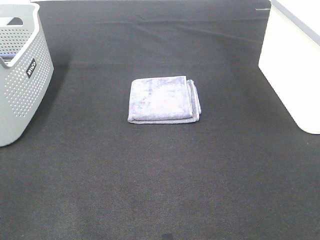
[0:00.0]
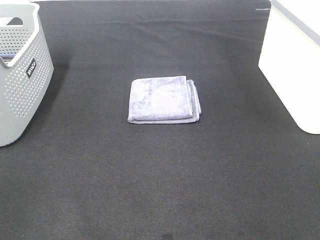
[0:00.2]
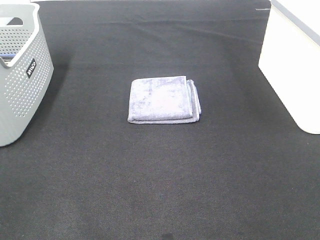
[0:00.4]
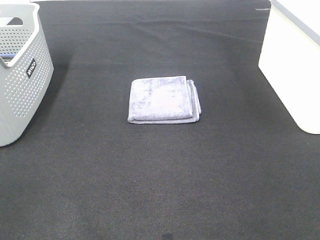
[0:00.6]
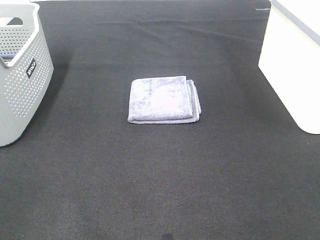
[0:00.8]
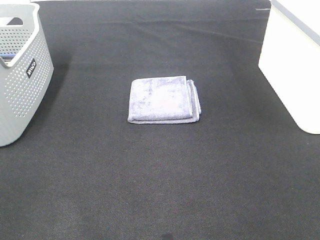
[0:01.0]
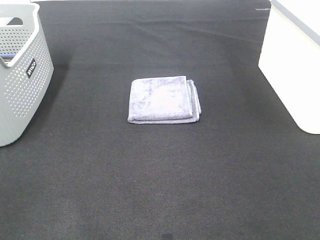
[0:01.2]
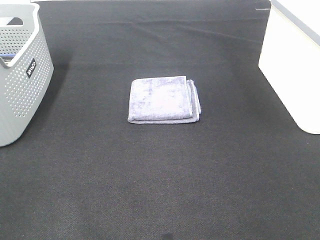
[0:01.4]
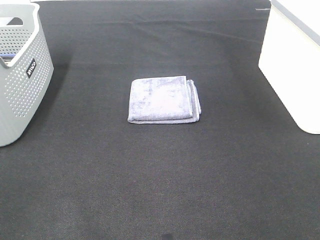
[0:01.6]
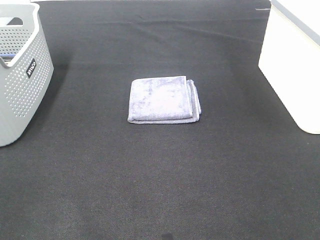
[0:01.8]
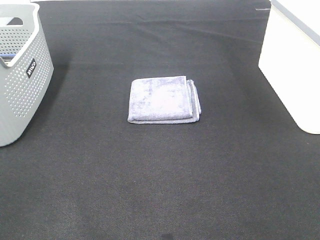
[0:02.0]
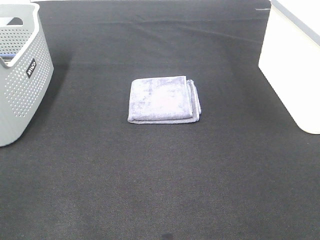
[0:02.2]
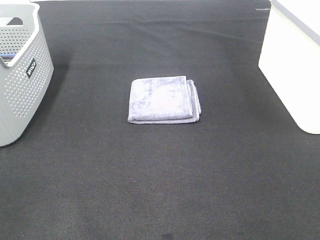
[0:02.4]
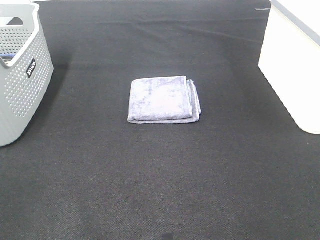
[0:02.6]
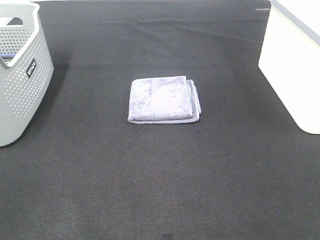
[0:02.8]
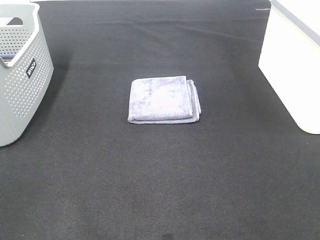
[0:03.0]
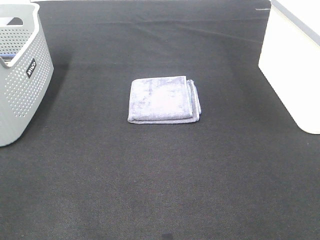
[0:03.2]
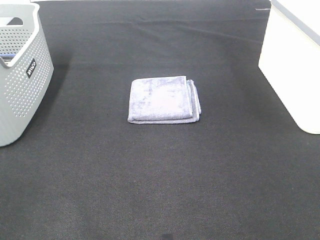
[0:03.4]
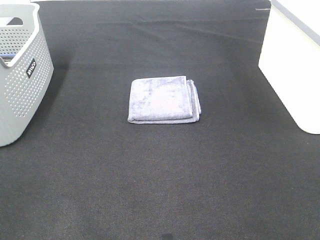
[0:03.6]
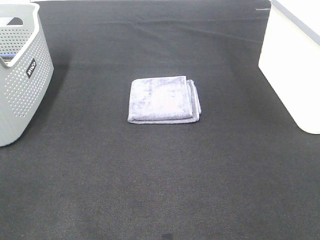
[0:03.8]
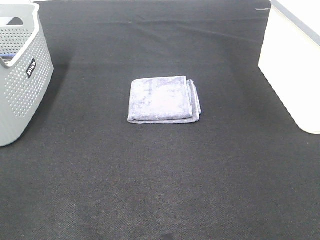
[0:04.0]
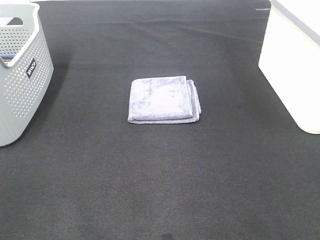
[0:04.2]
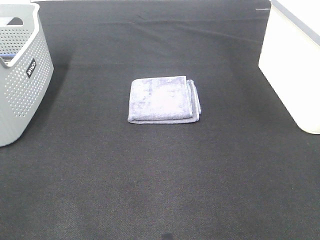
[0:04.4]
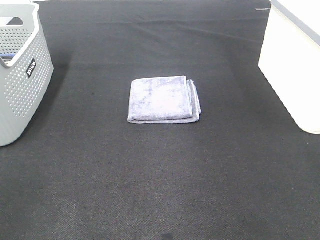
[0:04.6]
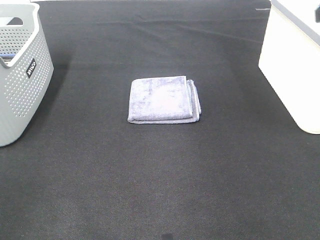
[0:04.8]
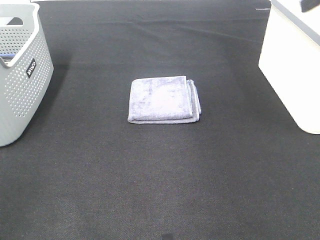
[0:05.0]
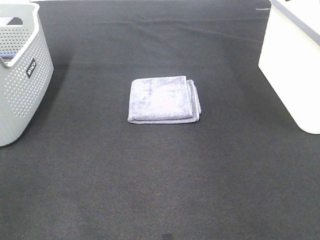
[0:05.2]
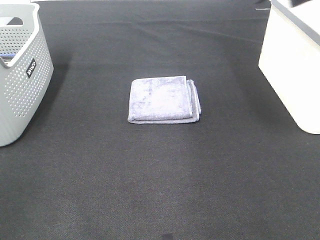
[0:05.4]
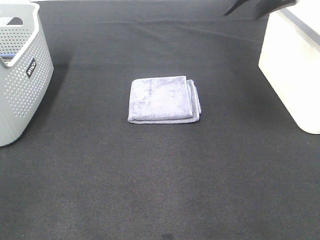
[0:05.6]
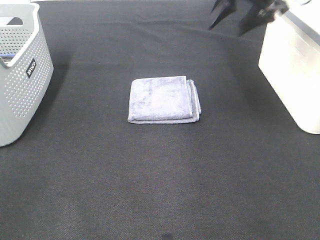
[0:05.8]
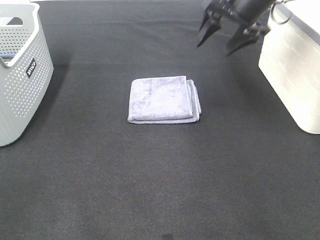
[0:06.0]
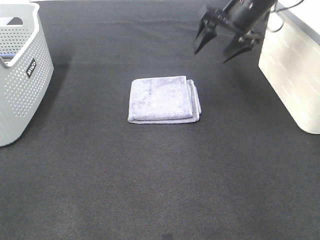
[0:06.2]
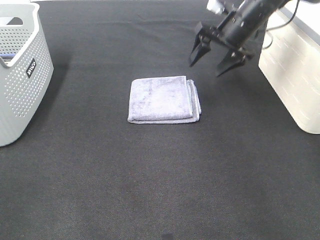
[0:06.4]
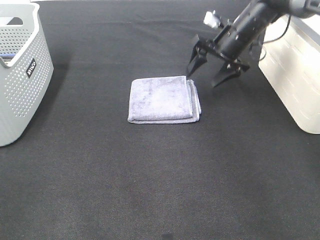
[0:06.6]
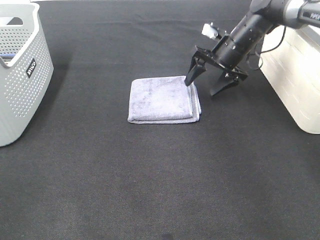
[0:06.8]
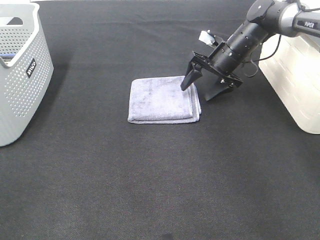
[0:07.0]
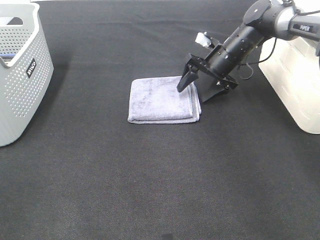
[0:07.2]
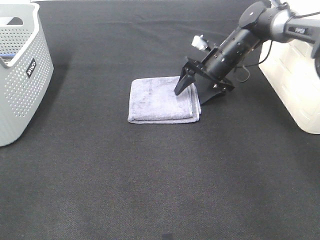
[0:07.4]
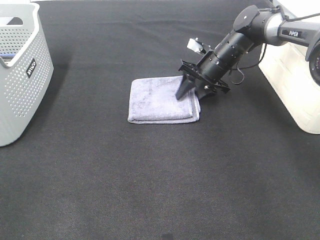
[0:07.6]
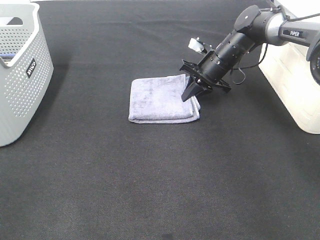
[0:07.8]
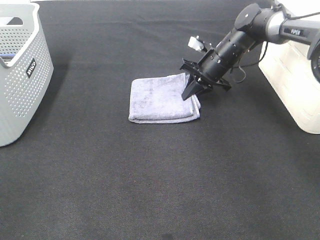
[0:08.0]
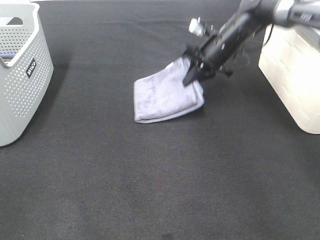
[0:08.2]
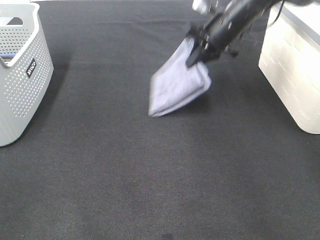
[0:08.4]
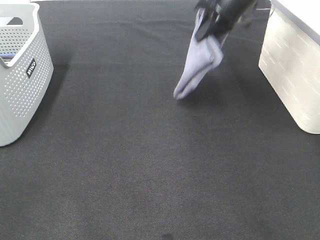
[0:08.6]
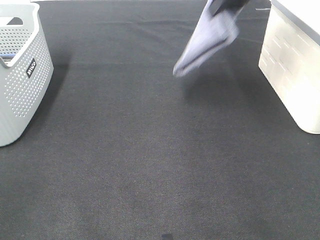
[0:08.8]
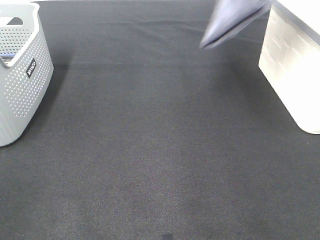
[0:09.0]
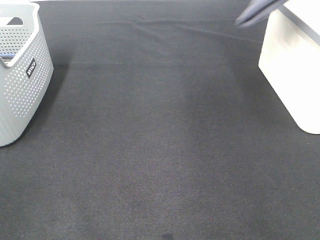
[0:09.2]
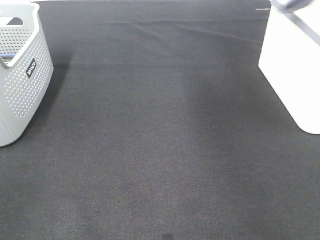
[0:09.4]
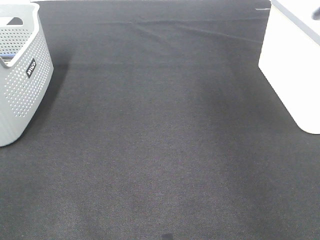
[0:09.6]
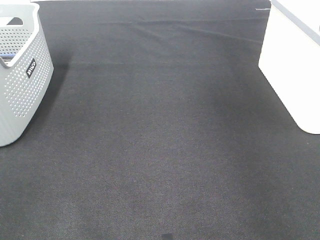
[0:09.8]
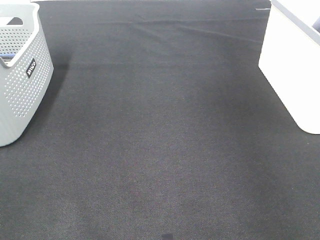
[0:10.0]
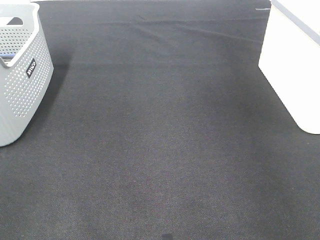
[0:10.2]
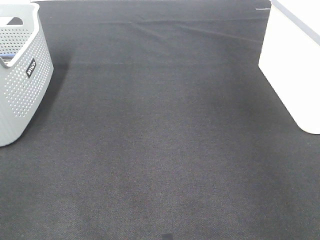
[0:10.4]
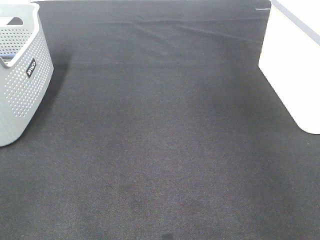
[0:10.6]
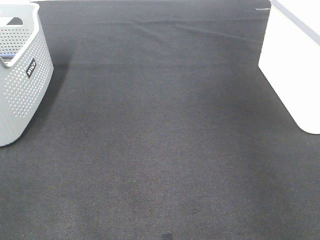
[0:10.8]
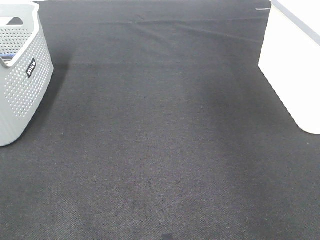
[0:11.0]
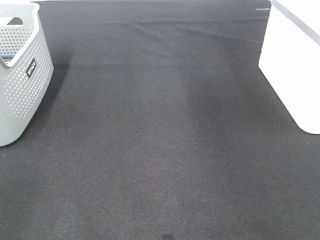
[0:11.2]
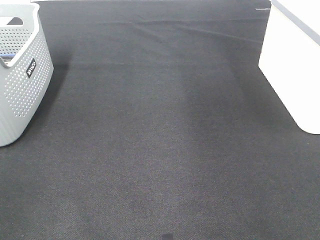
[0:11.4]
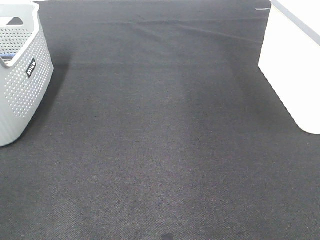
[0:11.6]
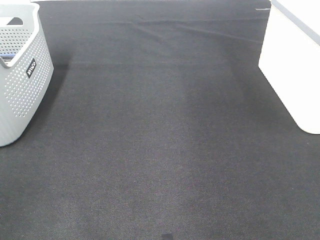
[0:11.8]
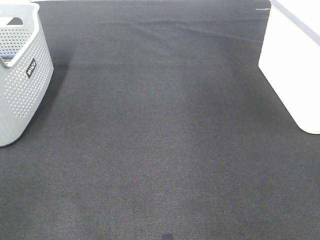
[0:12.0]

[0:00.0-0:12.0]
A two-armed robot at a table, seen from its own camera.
Step, 0:00.0 to 0:07.6: Right hand: grab the folded grey towel.
Step, 0:07.8 to 0:10.4: Right hand: place the grey towel in right basket.
0:00.0 to 0:03.0: The two grippers keep their place.
0:04.4 to 0:06.0: The right gripper travels forward by about 30 cm.
0:06.0 to 0:07.6: The right gripper heads downward, covering roughly 15 cm, and closes.
0:07.6 to 0:09.0: The right gripper shifts some 30 cm upward, and closes up.
0:09.0 to 0:10.4: The right gripper shifts approximately 20 cm to the right and downward, and opens up.

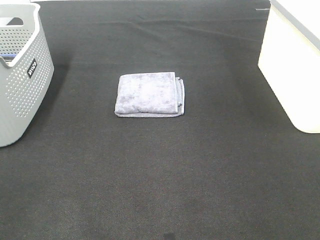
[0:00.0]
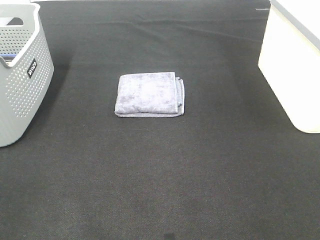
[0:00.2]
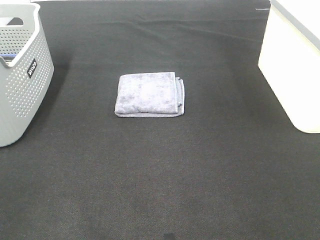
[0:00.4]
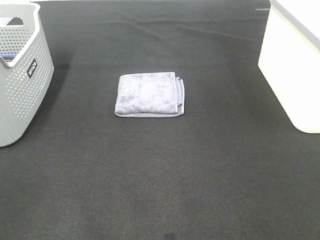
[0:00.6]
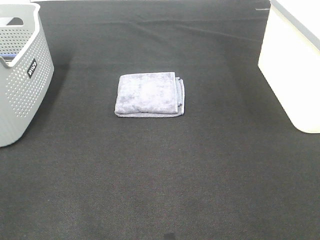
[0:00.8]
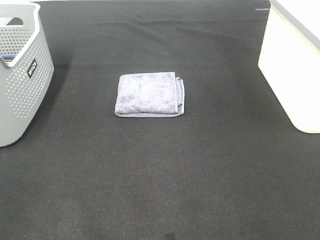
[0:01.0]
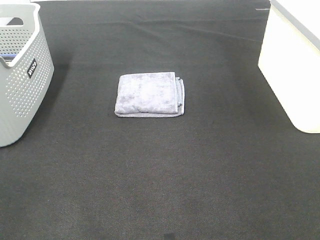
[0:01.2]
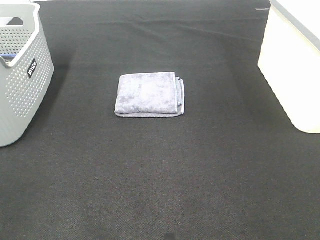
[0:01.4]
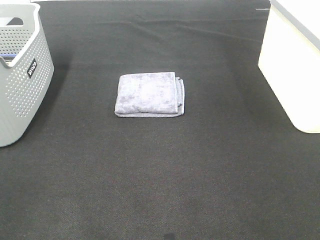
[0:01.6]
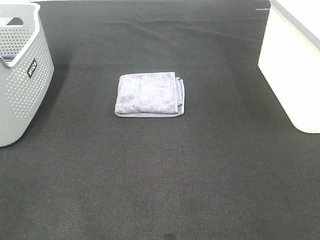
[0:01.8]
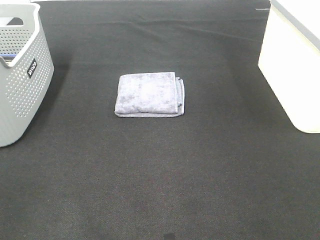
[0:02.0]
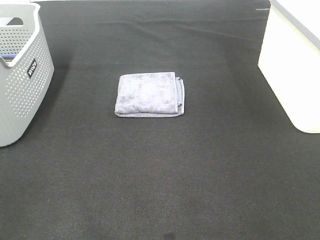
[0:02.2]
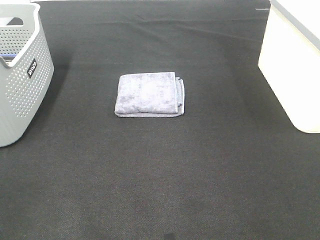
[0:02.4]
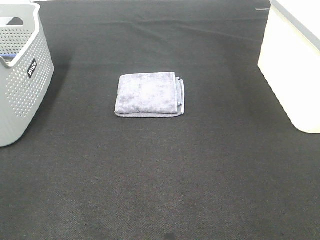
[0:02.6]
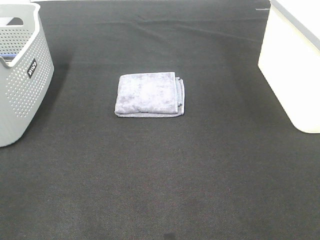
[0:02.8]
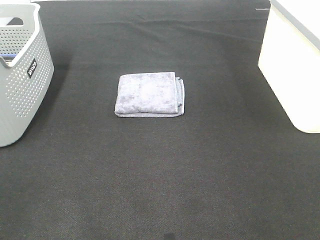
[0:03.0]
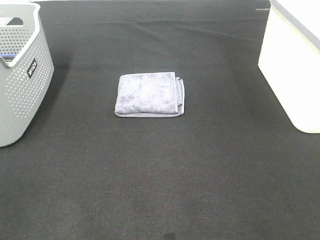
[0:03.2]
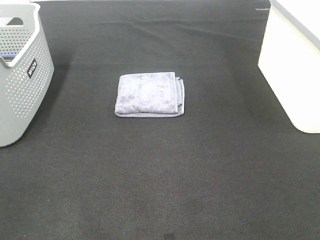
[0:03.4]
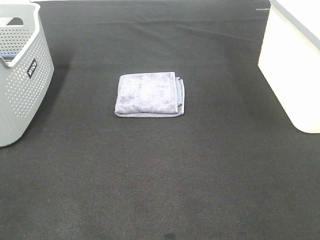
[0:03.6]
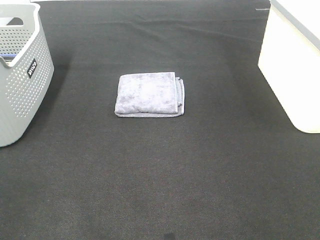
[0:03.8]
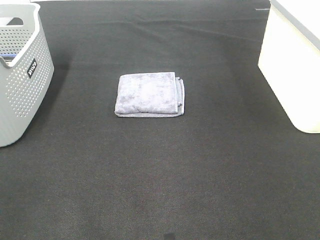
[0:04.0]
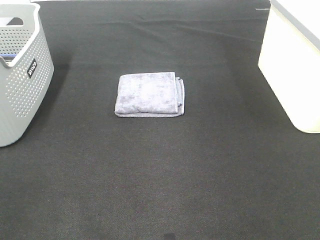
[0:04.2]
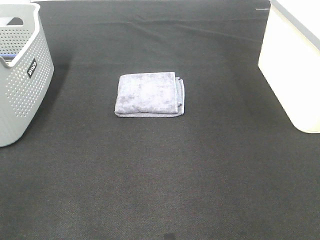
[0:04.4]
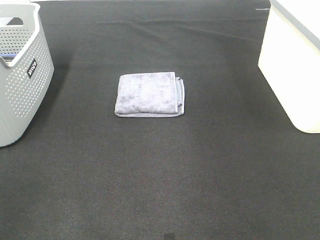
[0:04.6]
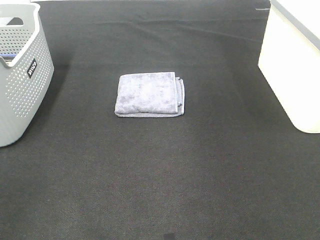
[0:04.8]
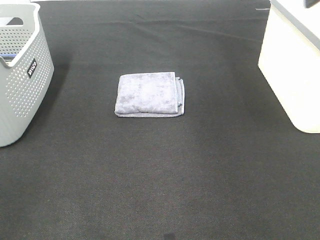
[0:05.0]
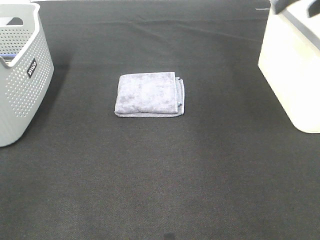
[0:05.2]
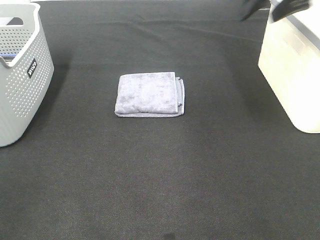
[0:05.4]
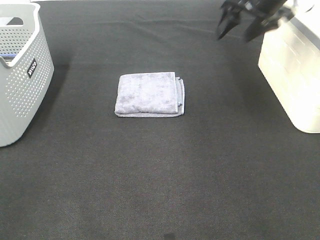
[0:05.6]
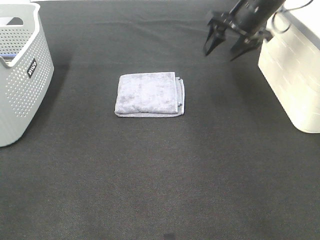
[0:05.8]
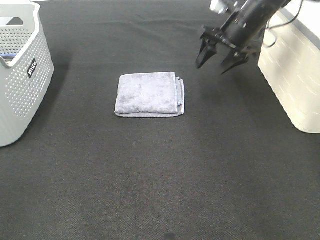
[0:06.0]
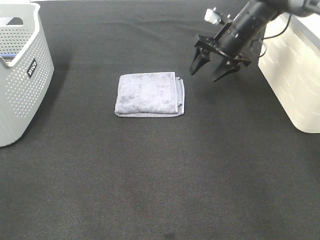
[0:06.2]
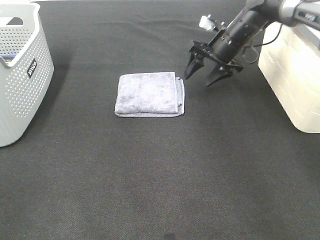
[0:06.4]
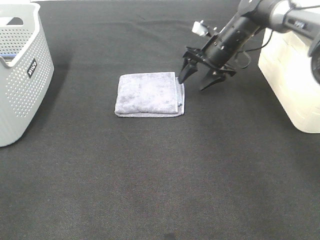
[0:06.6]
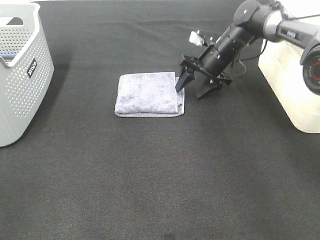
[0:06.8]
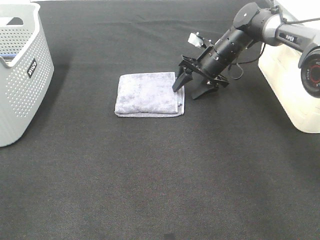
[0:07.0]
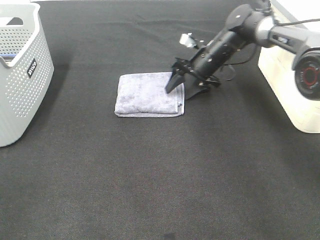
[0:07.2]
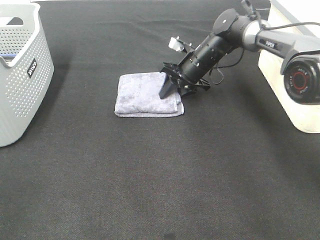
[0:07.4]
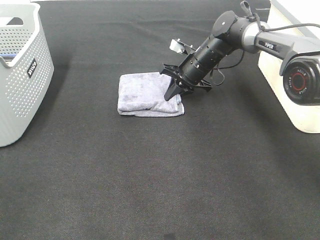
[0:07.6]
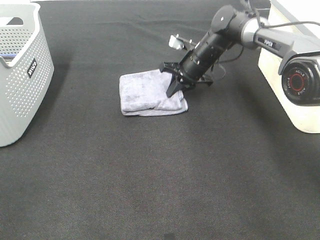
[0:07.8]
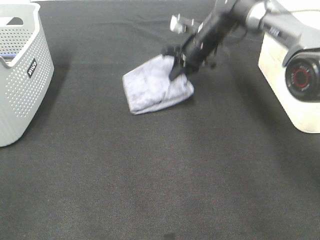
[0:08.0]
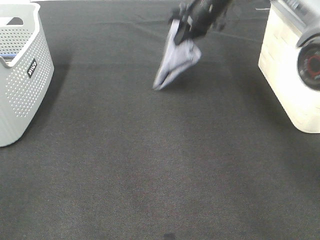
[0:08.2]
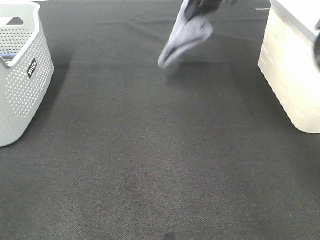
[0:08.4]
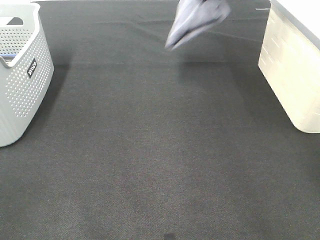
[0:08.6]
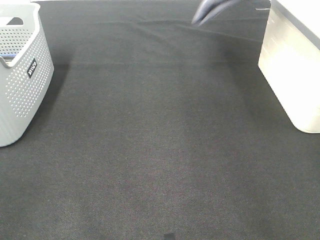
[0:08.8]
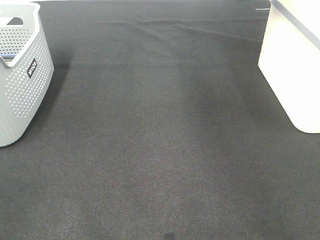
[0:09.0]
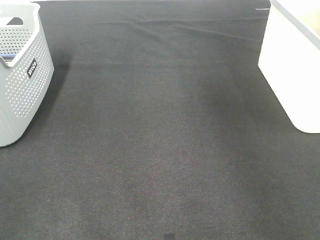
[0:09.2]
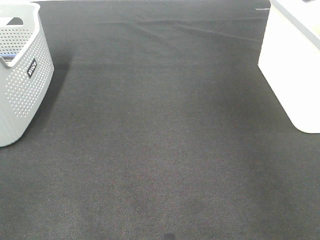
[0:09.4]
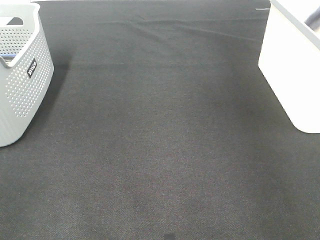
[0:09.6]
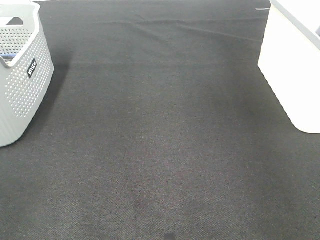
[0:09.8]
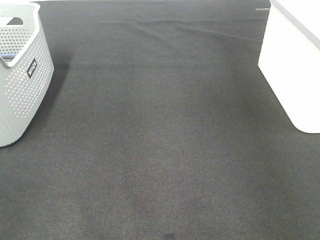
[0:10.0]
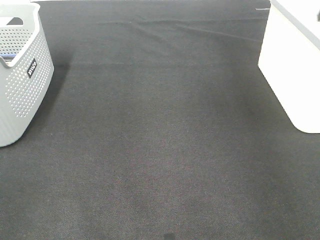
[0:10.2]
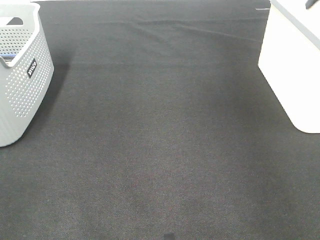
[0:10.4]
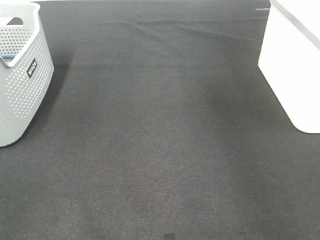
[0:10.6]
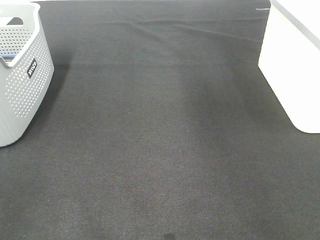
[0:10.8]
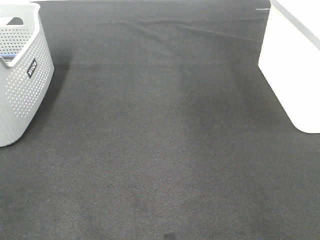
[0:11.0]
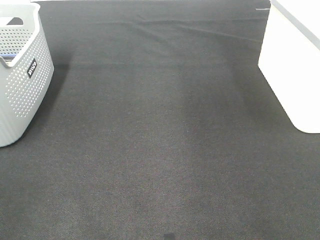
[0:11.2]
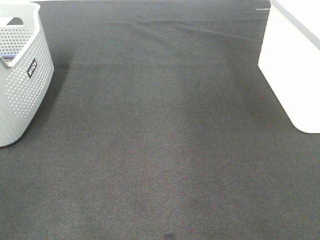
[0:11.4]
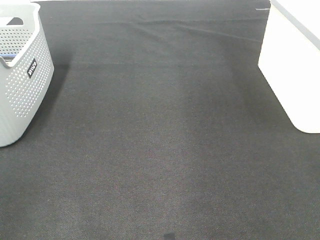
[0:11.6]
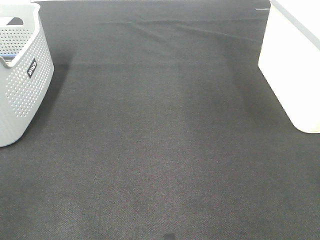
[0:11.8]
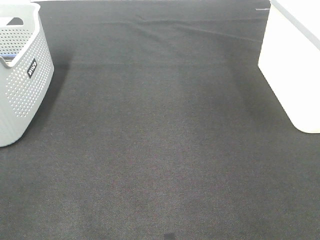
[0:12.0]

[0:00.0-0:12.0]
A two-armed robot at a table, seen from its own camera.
Step, 0:00.0 to 0:07.4: Right hand: grab the folded grey towel.
Step, 0:07.6 to 0:10.2: Right hand: place the grey towel in right basket.
0:00.0 to 0:03.0: The two grippers keep their place.
0:04.4 to 0:06.0: The right gripper shifts approximately 35 cm forward and downward.
0:06.0 to 0:07.6: The right gripper shifts roughly 10 cm downward and to the left, and closes its fingers.
0:07.6 to 0:09.0: The right gripper heads upward and to the right, covering about 40 cm.
